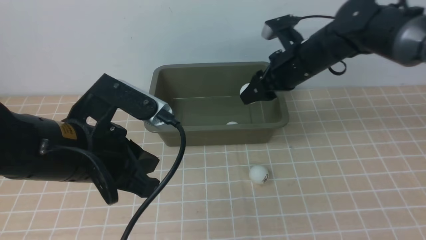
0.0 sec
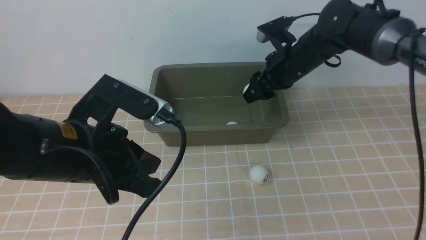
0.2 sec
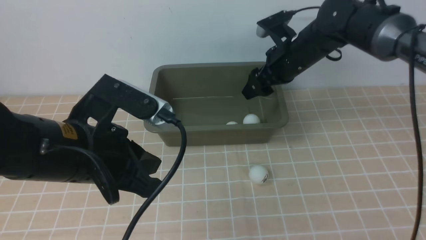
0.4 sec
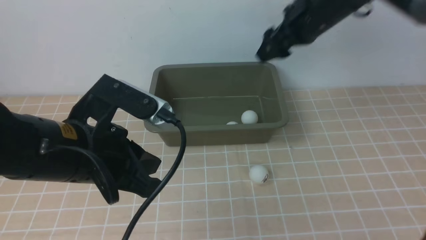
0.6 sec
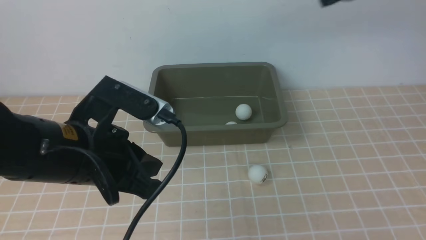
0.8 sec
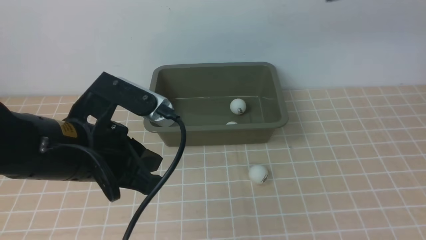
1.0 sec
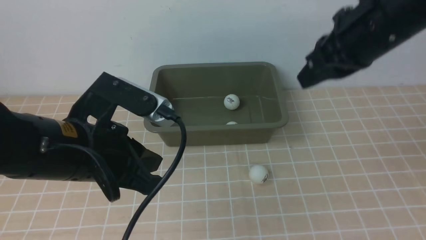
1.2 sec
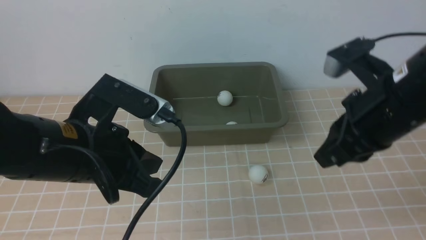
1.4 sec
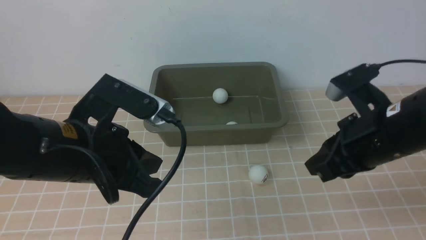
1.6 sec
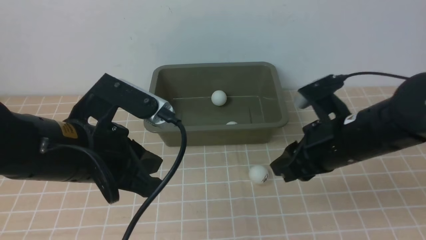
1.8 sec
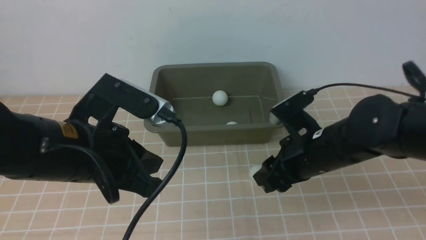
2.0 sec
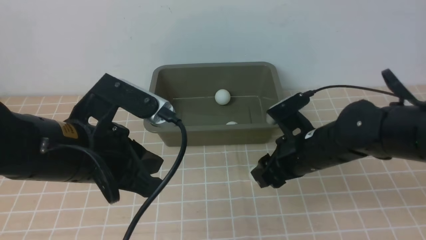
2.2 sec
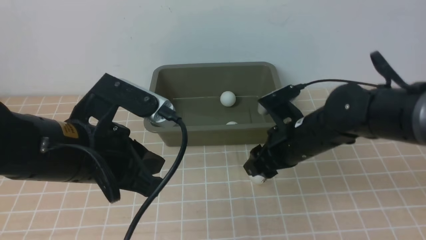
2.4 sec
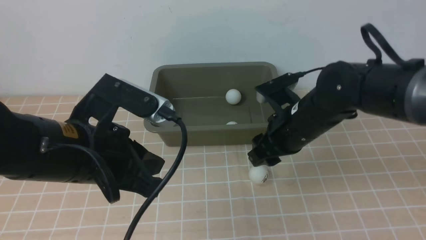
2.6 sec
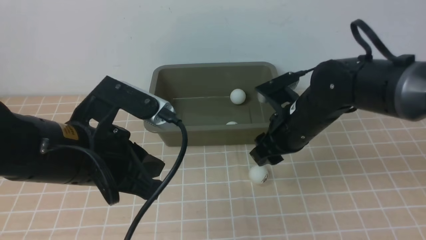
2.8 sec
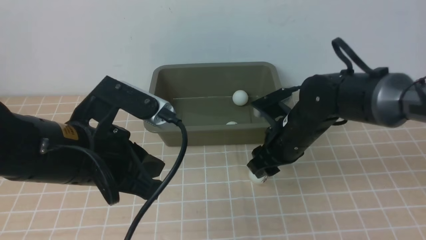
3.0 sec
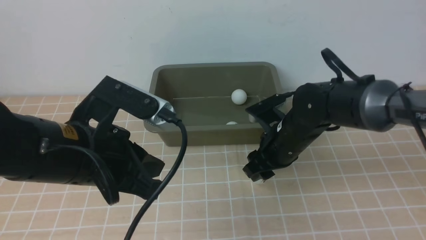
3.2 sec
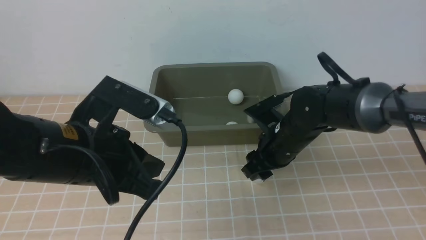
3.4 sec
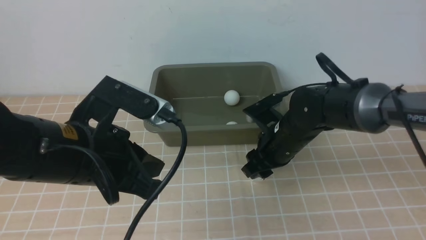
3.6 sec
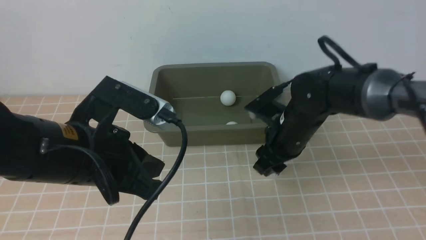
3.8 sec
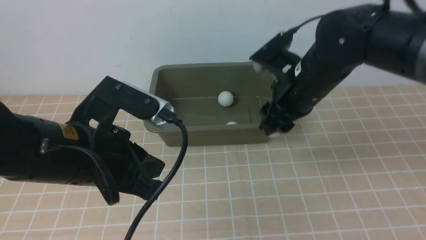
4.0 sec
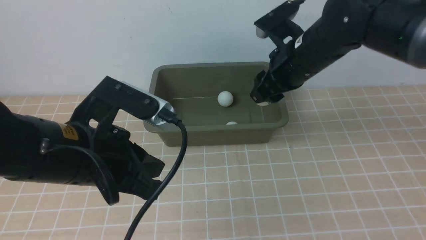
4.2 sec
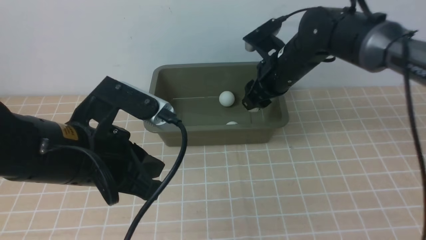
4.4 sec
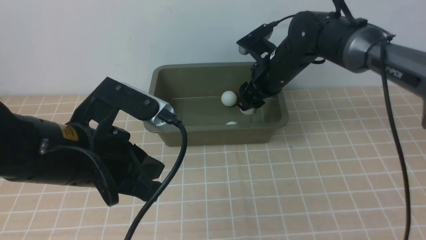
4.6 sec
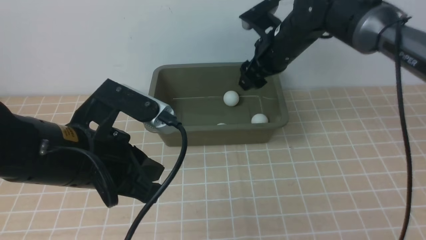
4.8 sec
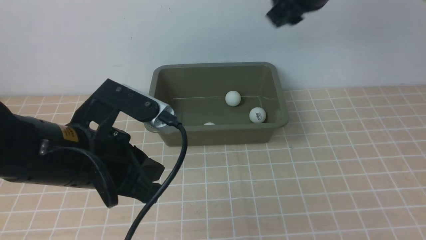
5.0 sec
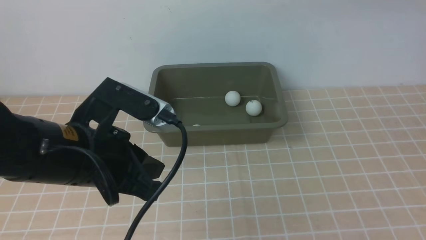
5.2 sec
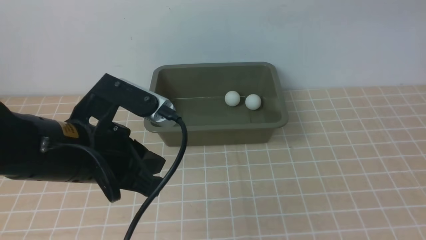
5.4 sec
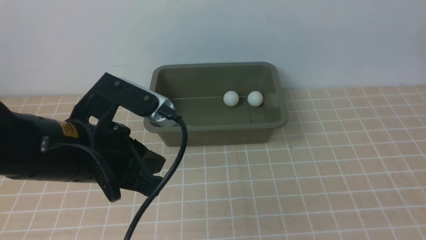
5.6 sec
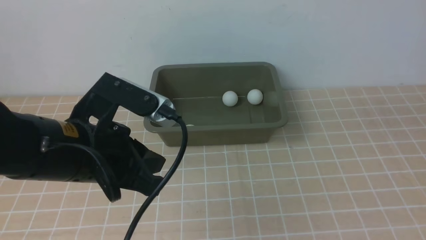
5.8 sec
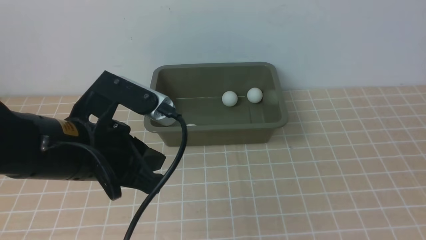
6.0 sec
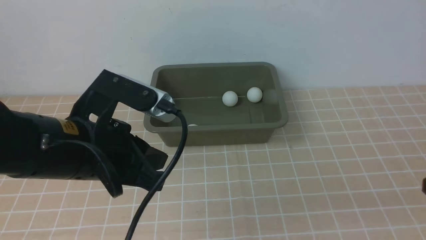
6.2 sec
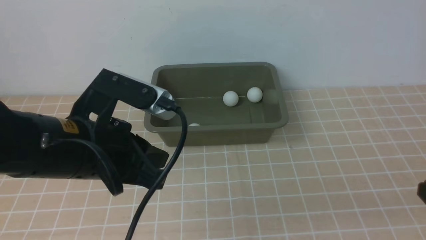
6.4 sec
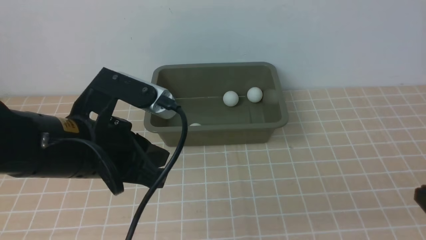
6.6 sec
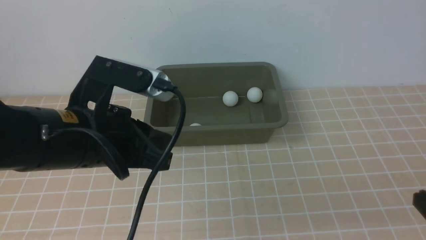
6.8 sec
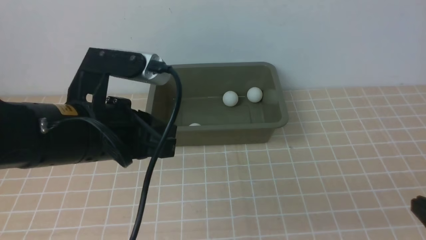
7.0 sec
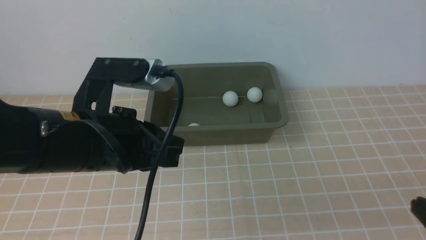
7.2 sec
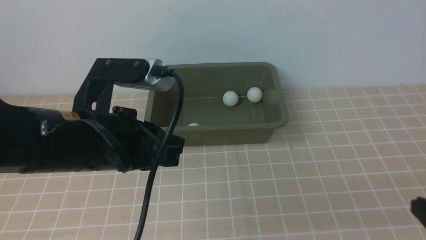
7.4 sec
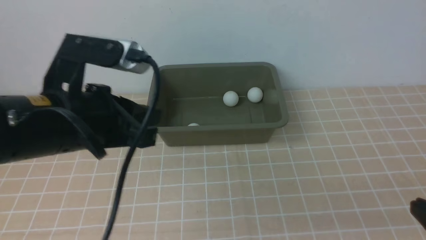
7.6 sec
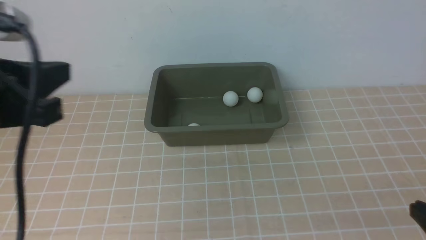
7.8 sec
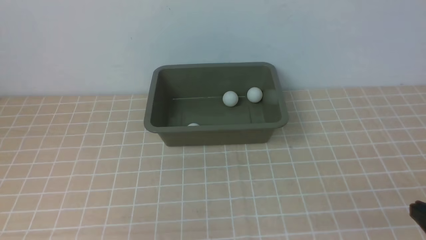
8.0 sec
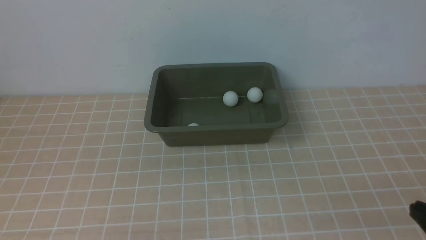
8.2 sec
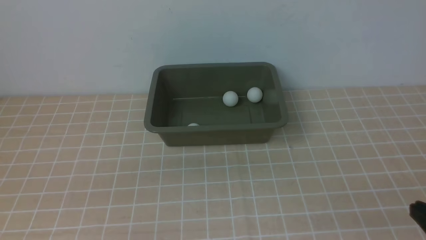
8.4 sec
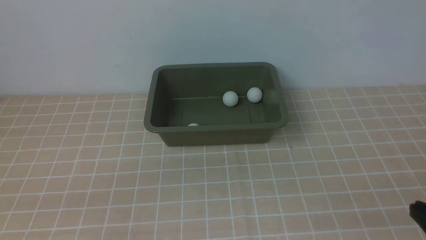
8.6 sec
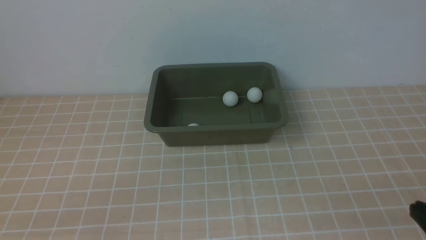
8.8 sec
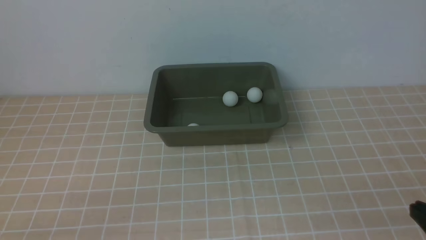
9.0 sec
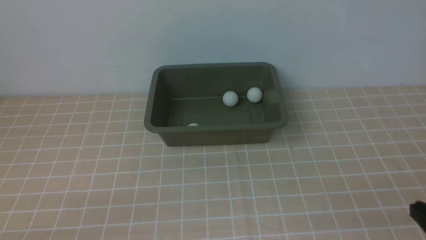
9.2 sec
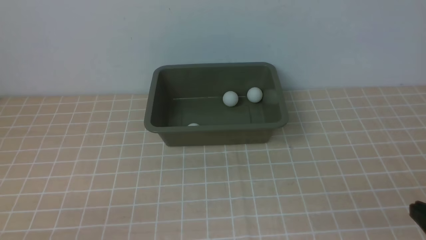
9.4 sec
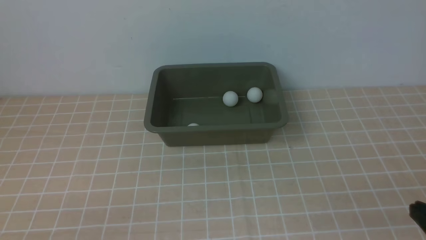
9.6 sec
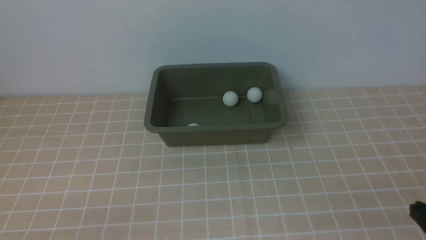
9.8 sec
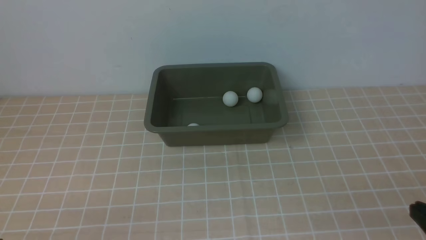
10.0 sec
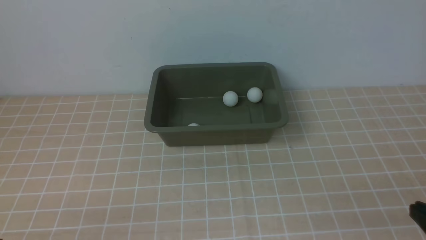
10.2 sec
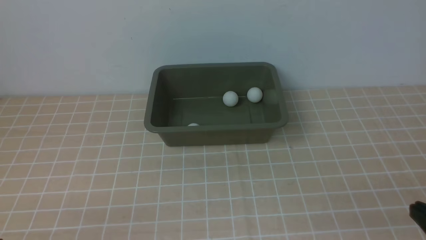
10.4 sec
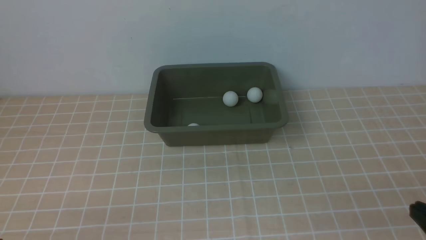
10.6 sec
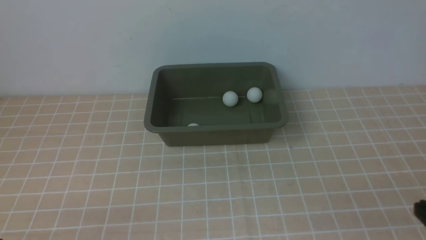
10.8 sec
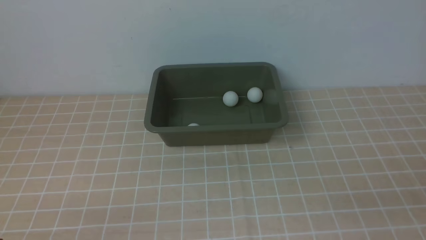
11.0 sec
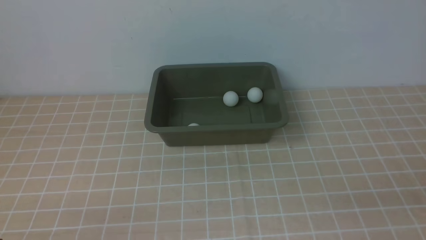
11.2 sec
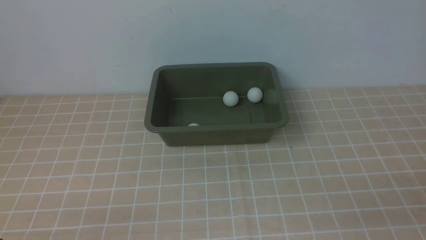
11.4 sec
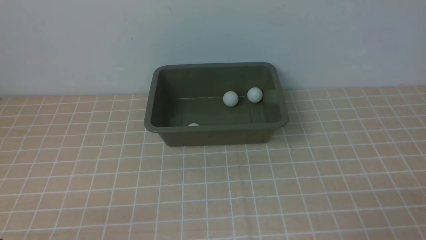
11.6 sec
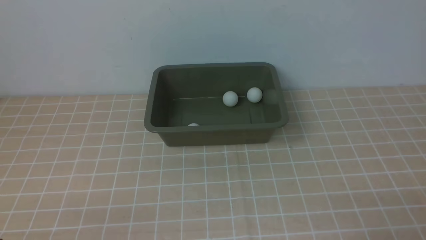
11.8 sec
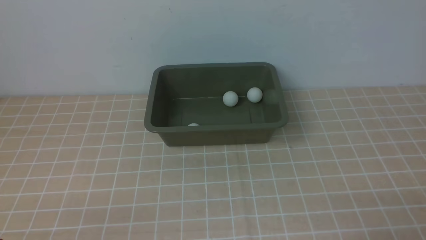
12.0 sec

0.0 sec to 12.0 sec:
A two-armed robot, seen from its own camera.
Step, 0.0 sec to 0.6 sec: use the right arm to put the table tennis ball into the box.
Step, 0.8 sec to 4.0 sec: use the right arm to clamp the table tennis ball closest to it.
Step, 4.2 sec to 4.8 sec: use the right arm to put the table tennis ball into the box.
0.0 sec to 1.6 sec: The right gripper moves backward, some 20 cm, and closes up.
1.6 sec to 3.0 sec: The right gripper heads downward, forward and to the left, covering some 15 cm, and opens up.
3.0 sec to 4.4 sec: The right gripper is displaced forward and upward by approximately 10 cm.
4.4 sec to 6.0 sec: The right gripper shifts roughly 35 cm backward and to the right, and closes.
6.0 sec to 7.6 sec: The left gripper shifts by about 5 cm, while the right gripper goes roughly 10 cm downward.
7.6 sec to 9.0 sec: The left gripper is displaced downward, backward and to the left by some 25 cm.

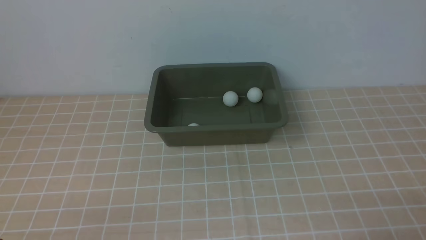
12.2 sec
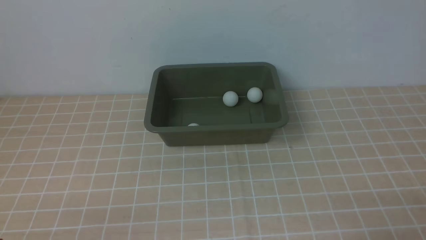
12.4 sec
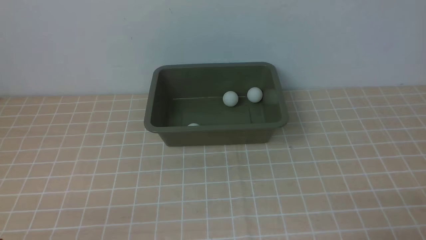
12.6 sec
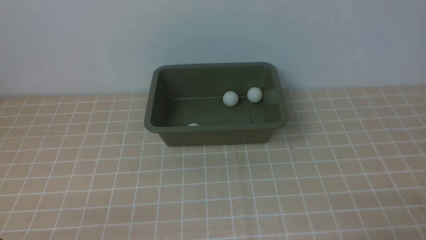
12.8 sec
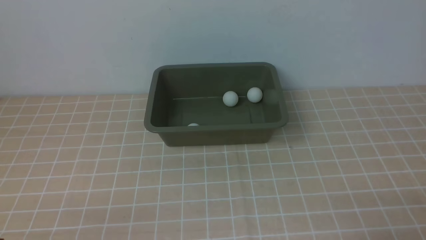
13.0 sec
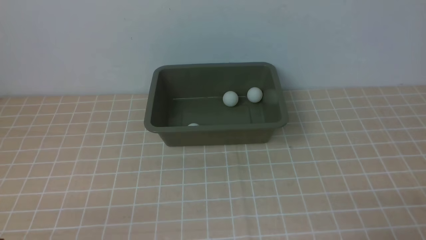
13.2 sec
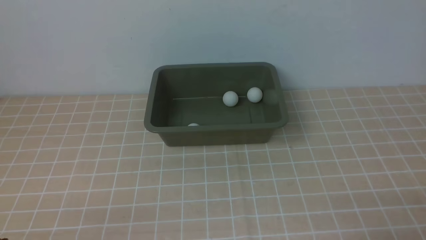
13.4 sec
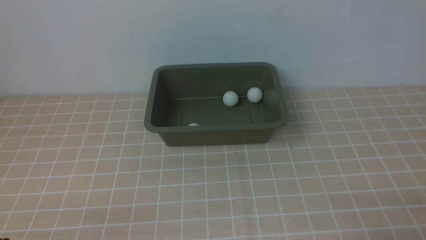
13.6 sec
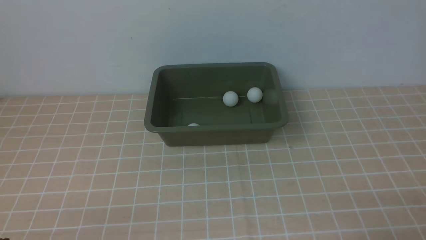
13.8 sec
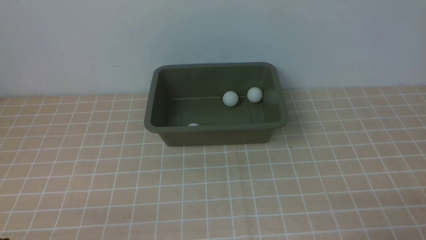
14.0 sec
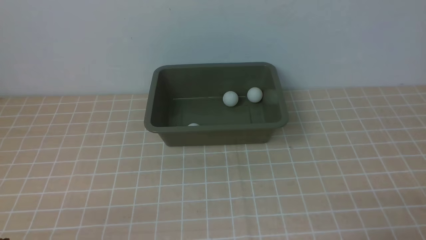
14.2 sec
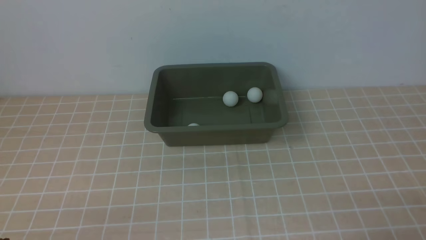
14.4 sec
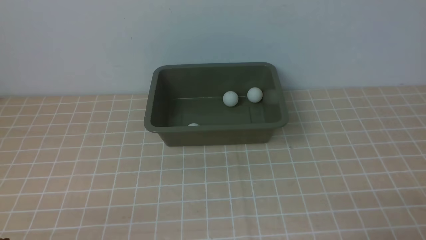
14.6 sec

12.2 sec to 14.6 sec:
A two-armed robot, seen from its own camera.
12.2 sec to 14.6 sec: Neither gripper changes place.
